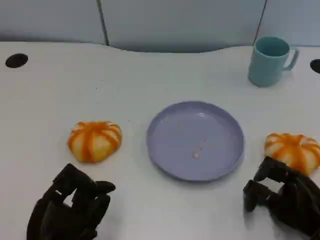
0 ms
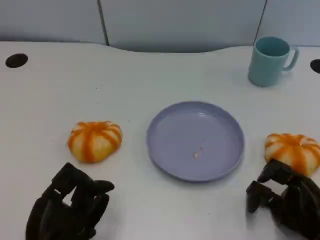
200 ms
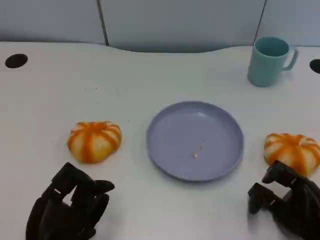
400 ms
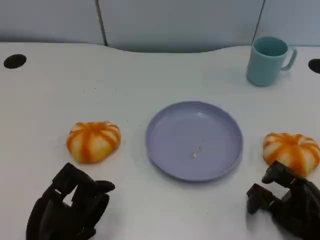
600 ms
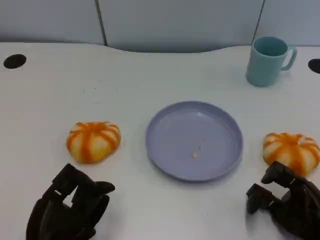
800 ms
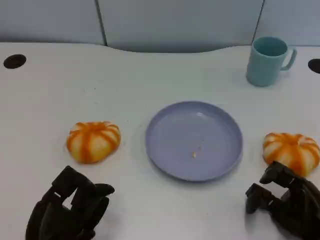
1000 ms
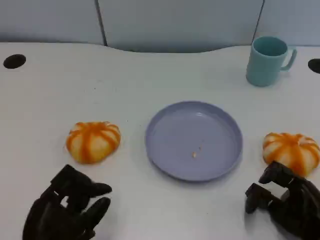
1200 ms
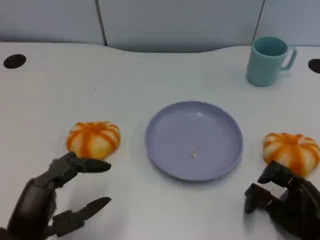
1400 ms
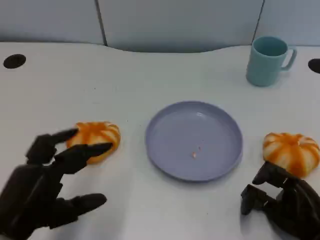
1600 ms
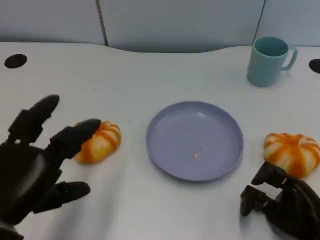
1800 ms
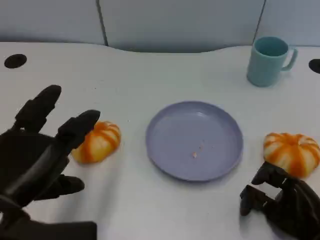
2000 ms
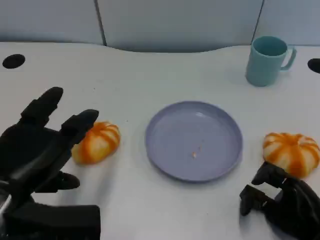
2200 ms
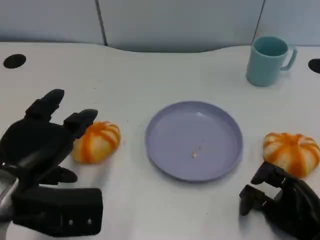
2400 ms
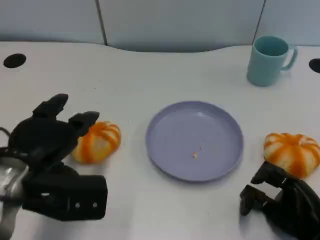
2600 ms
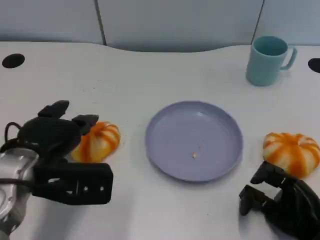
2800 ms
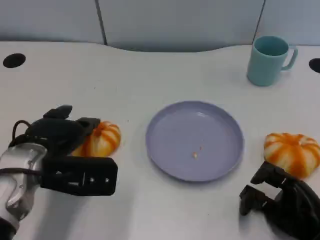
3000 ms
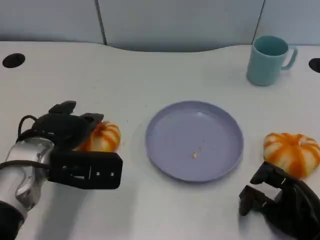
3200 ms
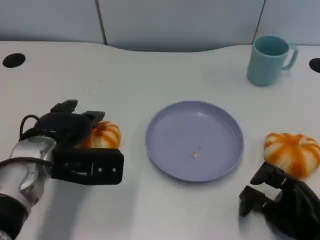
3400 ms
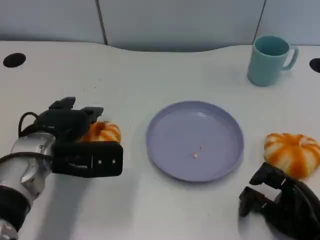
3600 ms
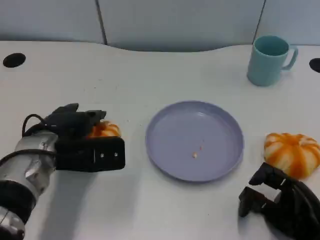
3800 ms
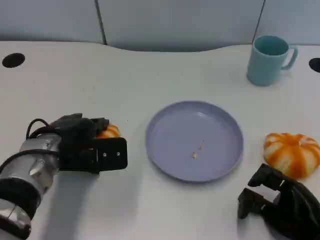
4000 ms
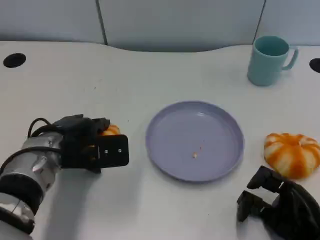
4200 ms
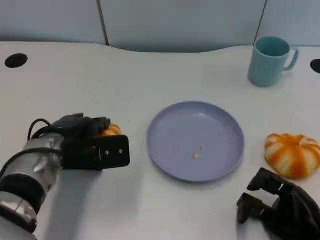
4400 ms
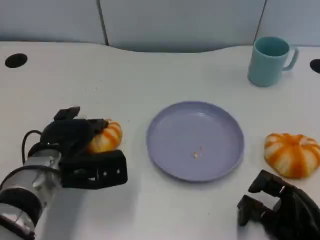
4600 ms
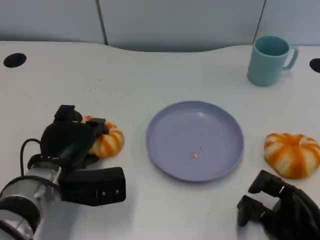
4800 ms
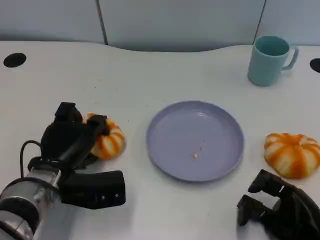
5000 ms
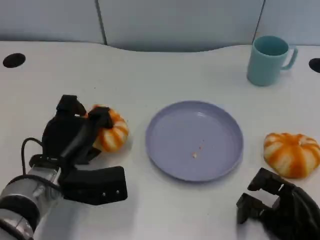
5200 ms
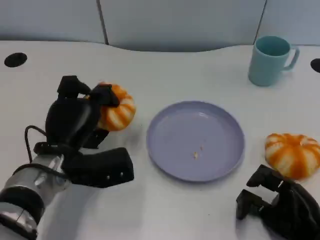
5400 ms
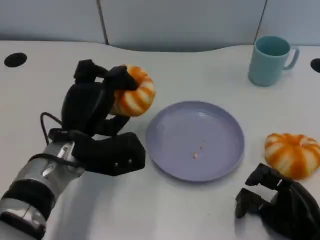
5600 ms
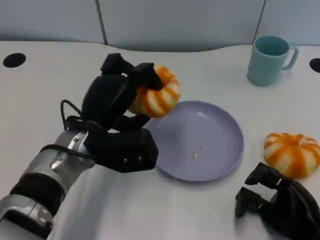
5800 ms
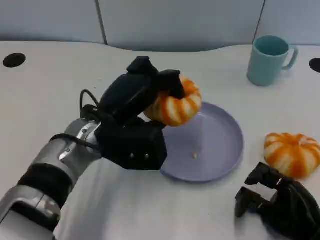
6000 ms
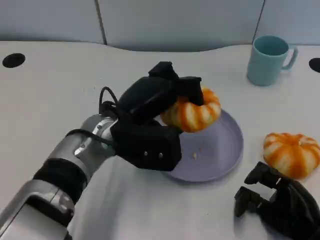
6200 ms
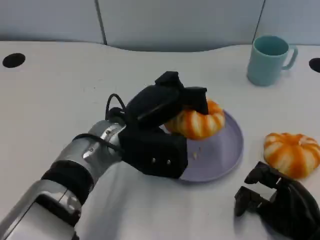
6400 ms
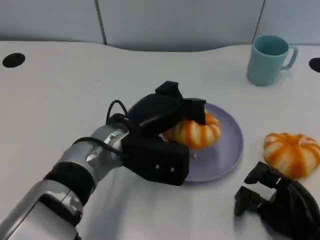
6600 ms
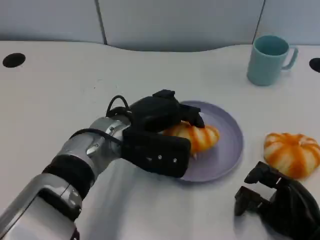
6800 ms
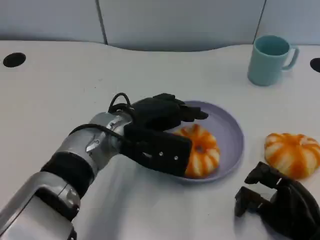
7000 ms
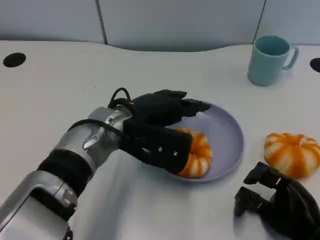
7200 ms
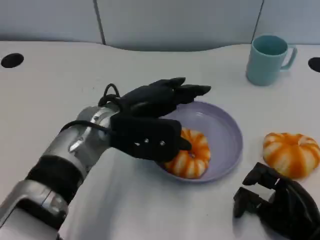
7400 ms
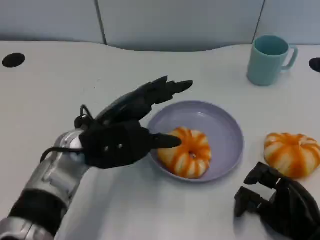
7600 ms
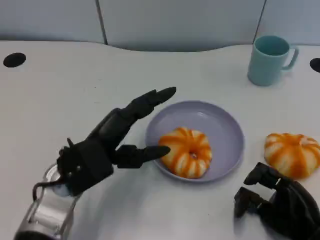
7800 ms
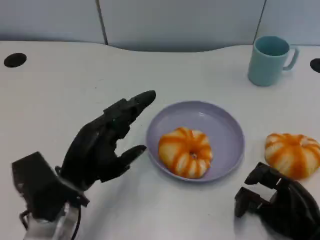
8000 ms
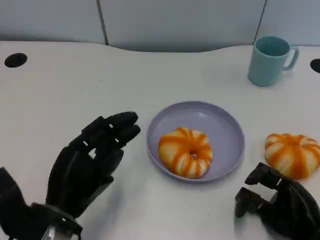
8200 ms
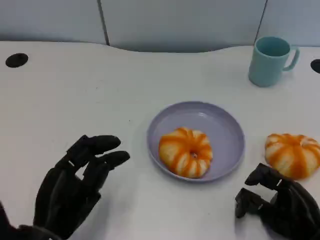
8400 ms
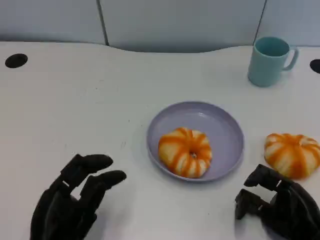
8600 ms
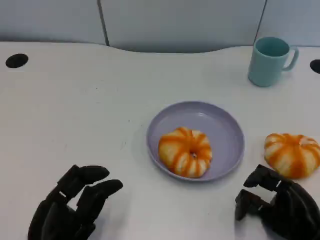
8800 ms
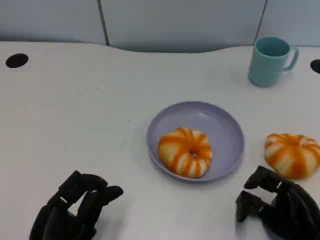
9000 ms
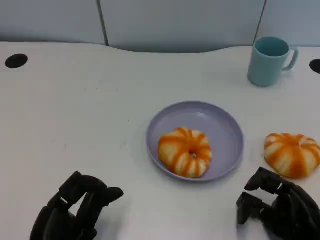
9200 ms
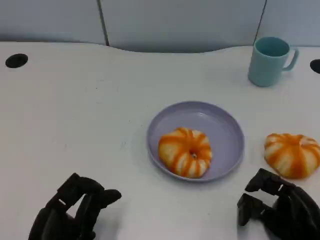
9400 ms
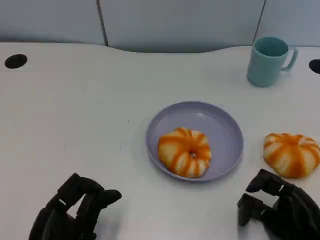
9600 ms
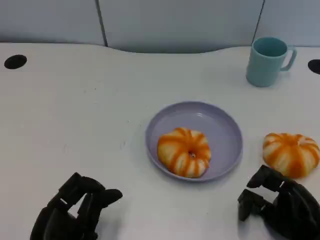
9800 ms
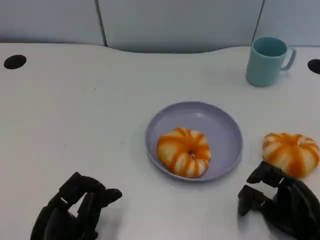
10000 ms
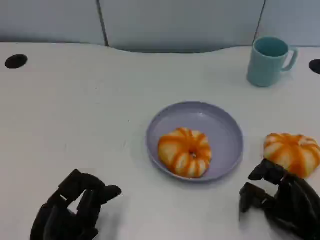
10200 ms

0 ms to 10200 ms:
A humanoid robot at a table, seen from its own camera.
Task of the whole recording: Grasp the bread from the table and place it into the plate.
0 ms to 1400 ms: The left hand moves about 5 cm.
1400 ms to 3000 ms: The left hand travels forward by approximately 15 cm.
3000 ms to 4400 ms: The hands move only a little.
4400 ms to 5800 ms: The left hand shifts about 5 cm to the right.
5800 ms to 7200 ms: The left hand moves roughly 5 cm.
7200 ms to 8800 ms: The left hand shifts roughly 25 cm backward, to the left and downward.
8800 ms to 10200 ms: Both hands stay about where they are.

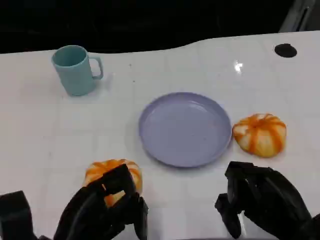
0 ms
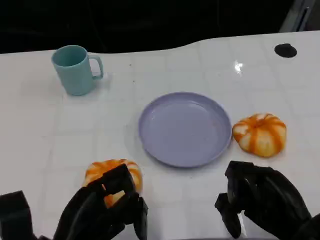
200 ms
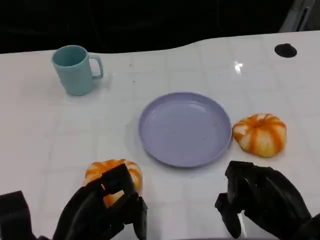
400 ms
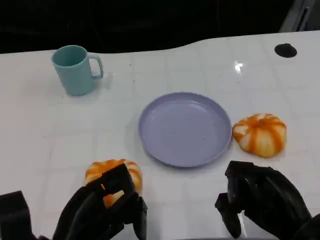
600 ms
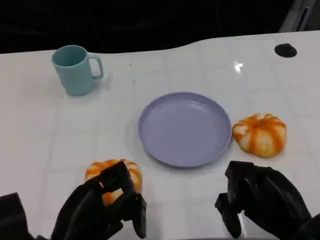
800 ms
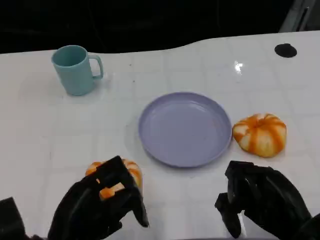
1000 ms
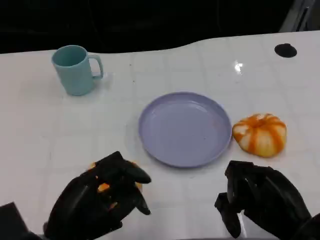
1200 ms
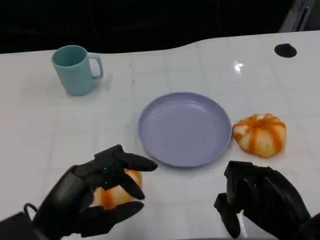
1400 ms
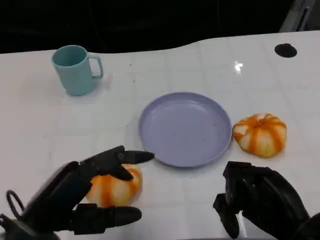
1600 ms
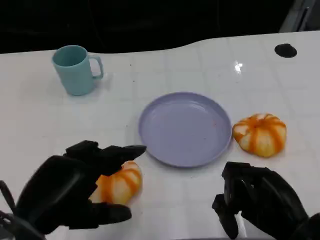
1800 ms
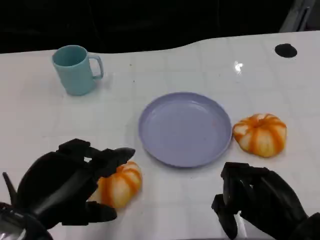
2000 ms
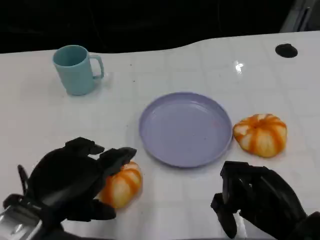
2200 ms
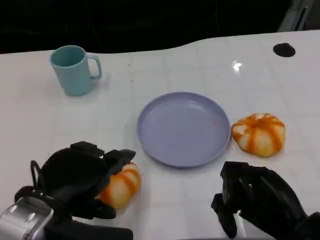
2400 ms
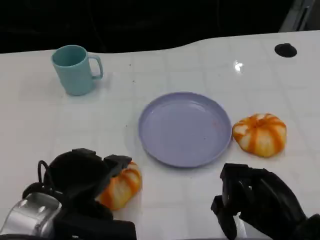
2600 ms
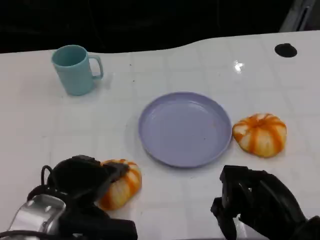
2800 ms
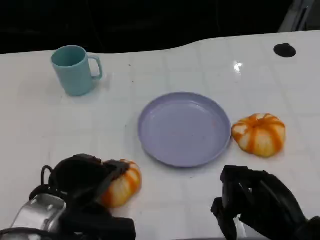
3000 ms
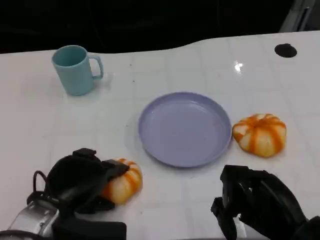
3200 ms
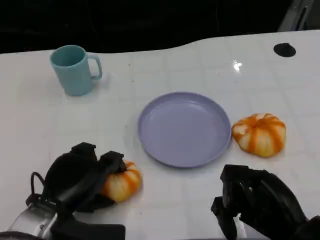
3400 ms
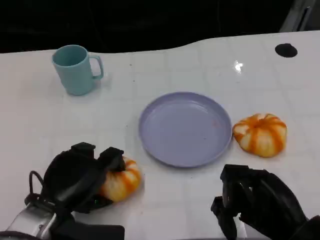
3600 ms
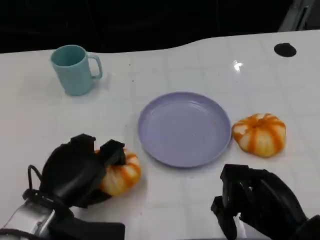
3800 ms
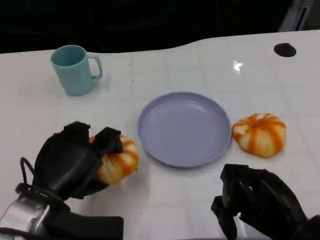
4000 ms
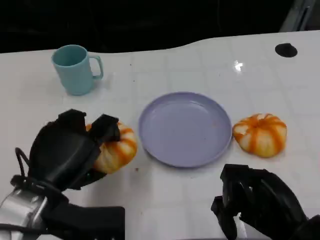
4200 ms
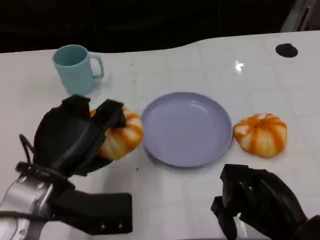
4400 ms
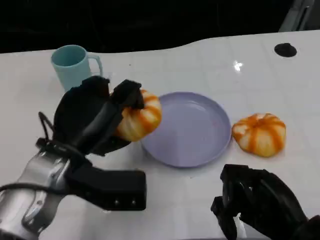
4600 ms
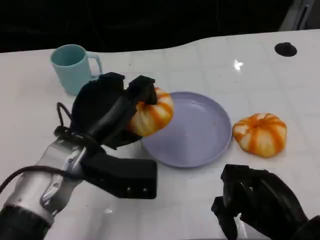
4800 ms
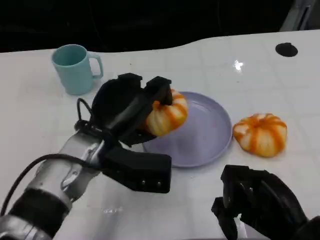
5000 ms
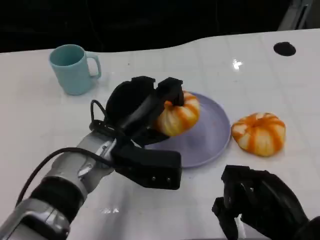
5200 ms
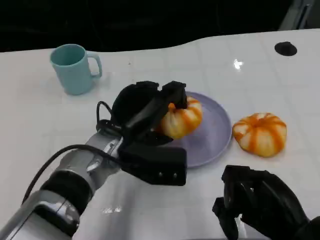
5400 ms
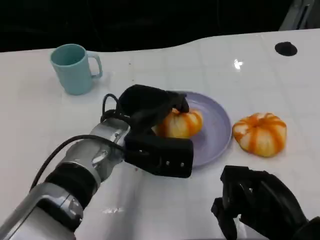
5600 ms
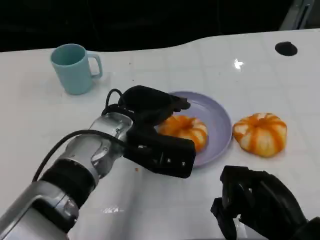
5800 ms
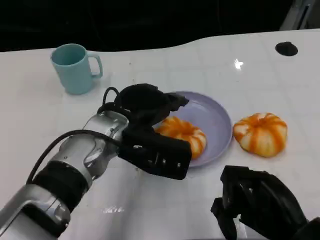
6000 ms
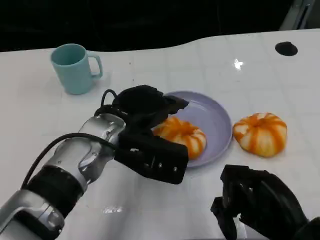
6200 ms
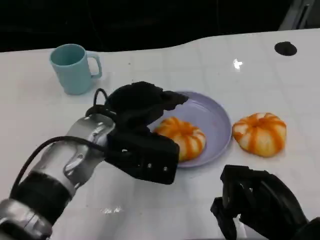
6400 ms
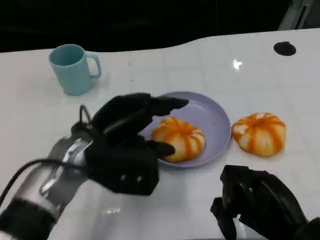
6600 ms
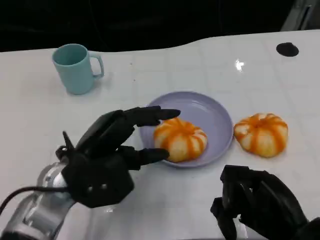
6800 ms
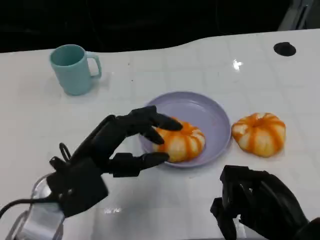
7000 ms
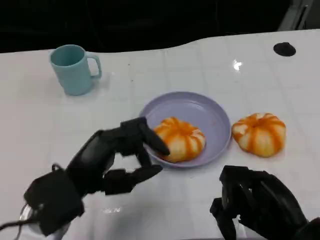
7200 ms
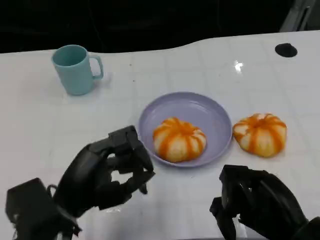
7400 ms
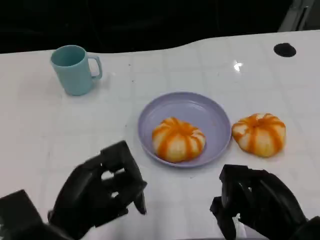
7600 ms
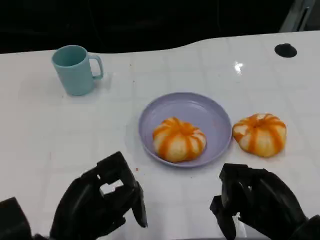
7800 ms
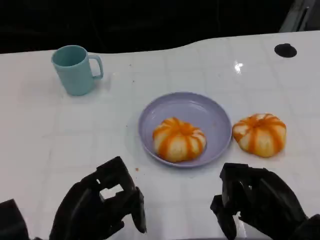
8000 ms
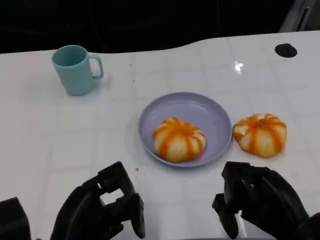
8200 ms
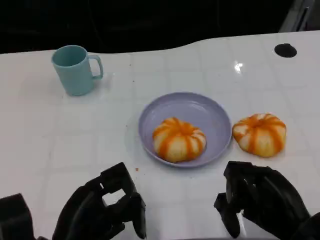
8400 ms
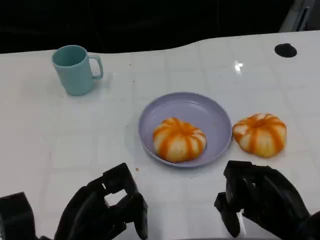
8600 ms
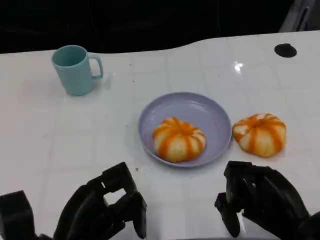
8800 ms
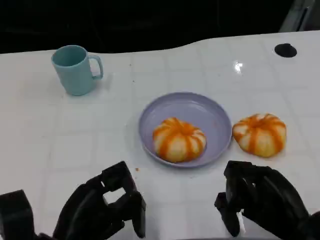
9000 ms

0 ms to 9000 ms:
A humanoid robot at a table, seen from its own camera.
Task of the whole recording: Grasp the bread from the table and place it into the plate.
0 ms to 1600 ms: The left hand heads upward, covering approximately 5 cm.
1600 ms to 3000 ms: The left hand moves forward and downward, approximately 10 cm.
3000 ms to 4400 ms: The left hand shifts some 5 cm upward.
4400 ms to 6000 ms: The left hand is displaced to the right and forward by some 10 cm.
6000 ms to 7600 ms: The left hand travels backward and to the left by about 15 cm.
7600 ms to 9000 ms: The hands stay close to where they were, moving slightly.

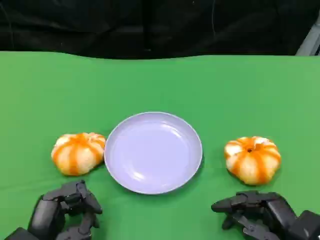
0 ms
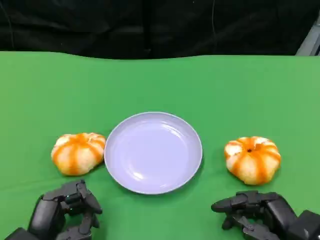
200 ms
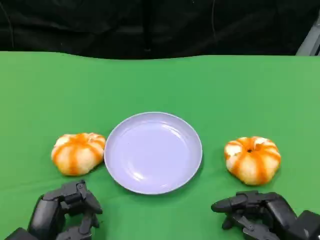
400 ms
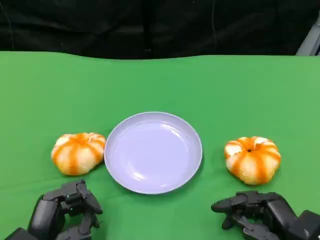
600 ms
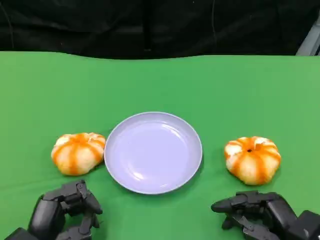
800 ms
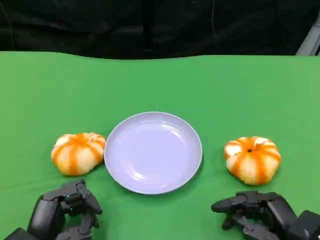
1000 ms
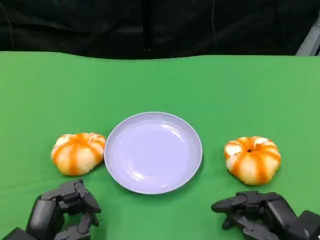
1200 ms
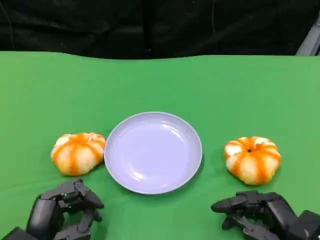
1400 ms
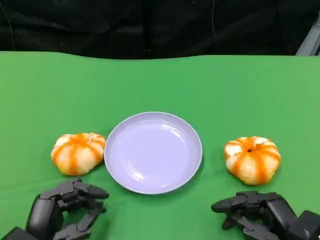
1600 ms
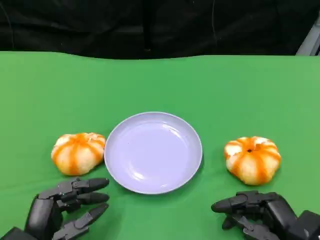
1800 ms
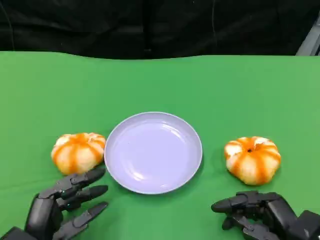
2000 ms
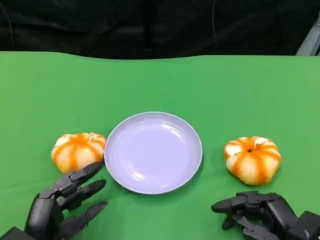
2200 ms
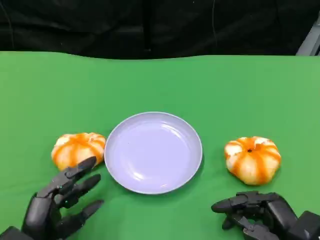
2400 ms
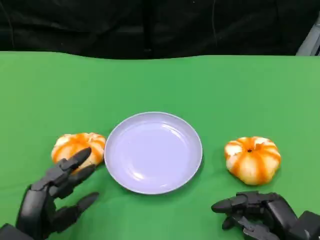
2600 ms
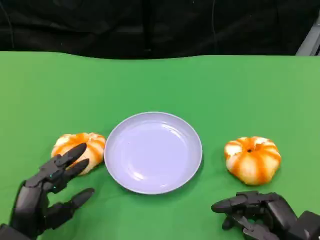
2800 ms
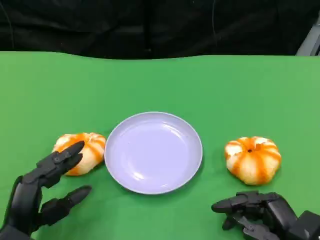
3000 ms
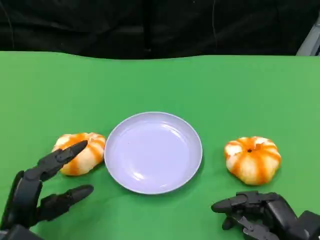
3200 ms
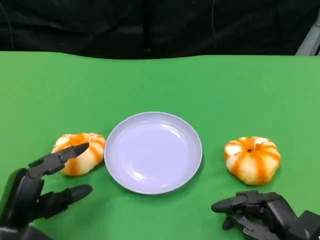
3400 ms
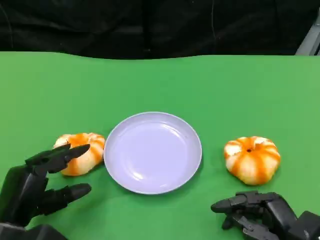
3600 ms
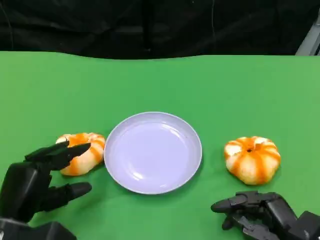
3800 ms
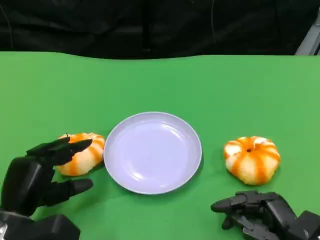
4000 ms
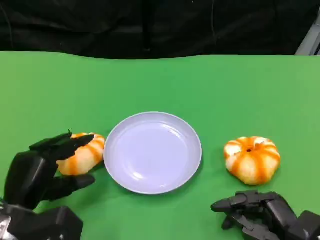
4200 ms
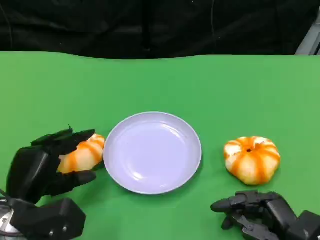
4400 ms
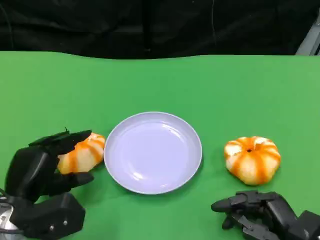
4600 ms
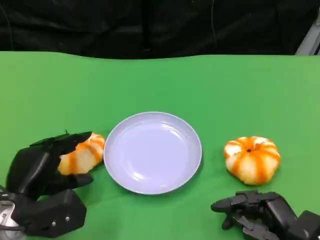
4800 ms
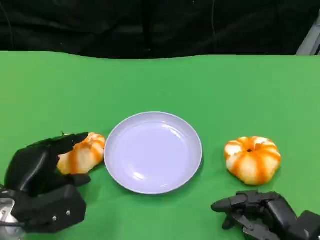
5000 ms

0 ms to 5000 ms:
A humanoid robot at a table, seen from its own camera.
Task of the whole recording: Grasp the bread from the table and place it into the plate.
0 ms to 1600 ms: Both hands stay put.
